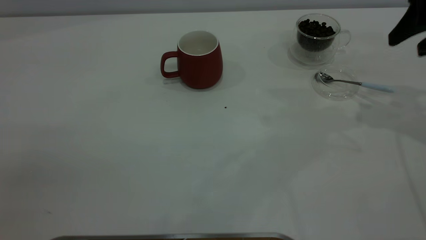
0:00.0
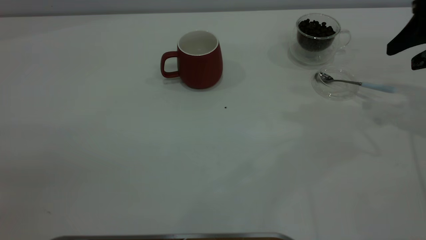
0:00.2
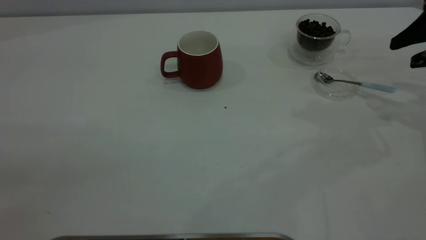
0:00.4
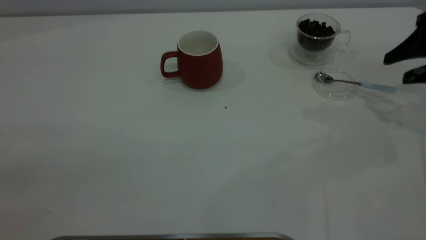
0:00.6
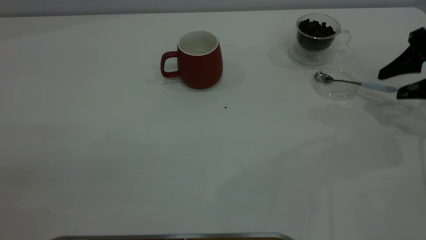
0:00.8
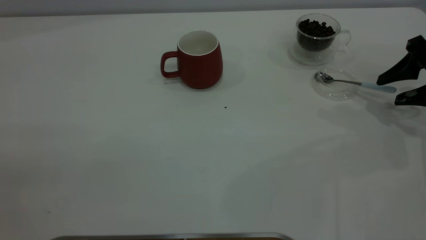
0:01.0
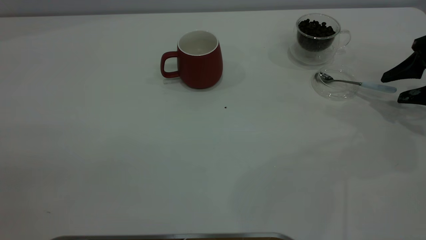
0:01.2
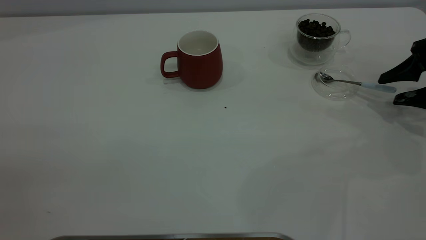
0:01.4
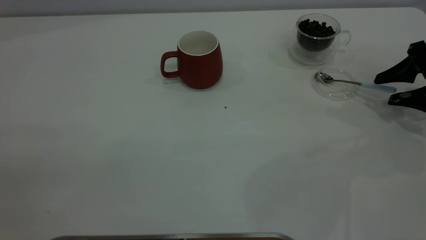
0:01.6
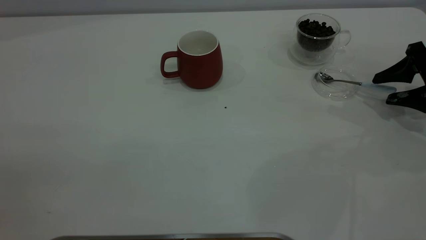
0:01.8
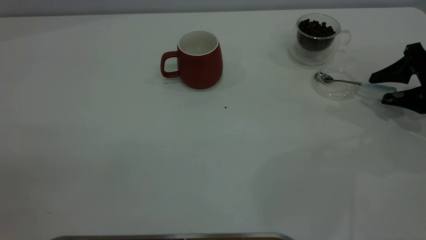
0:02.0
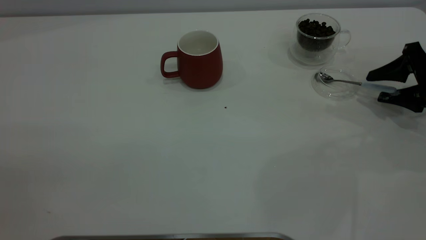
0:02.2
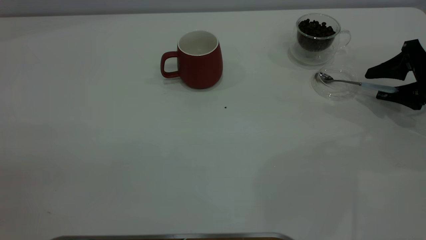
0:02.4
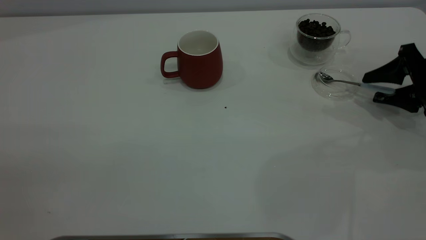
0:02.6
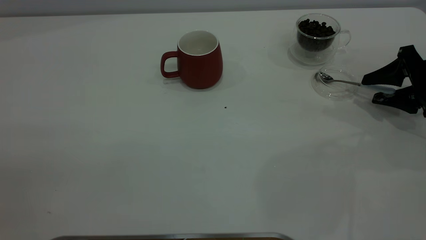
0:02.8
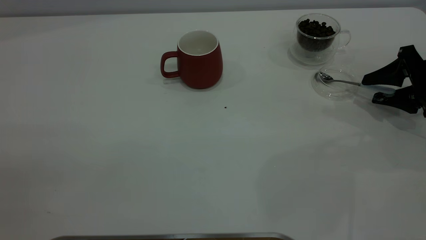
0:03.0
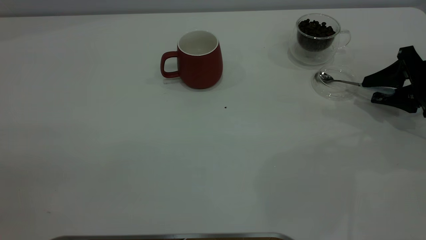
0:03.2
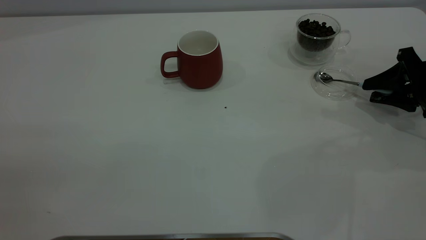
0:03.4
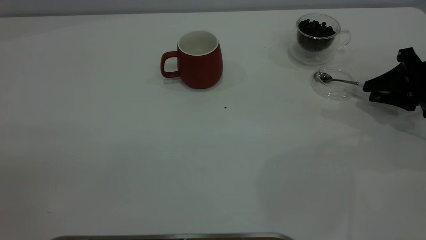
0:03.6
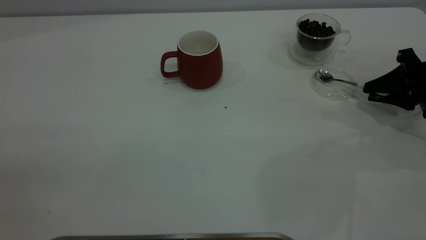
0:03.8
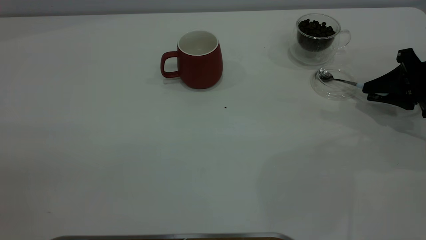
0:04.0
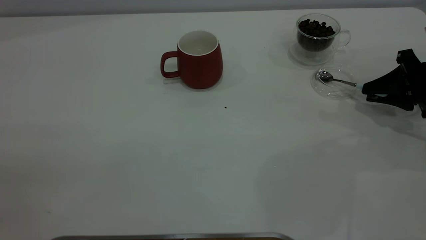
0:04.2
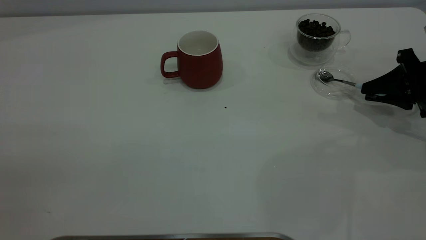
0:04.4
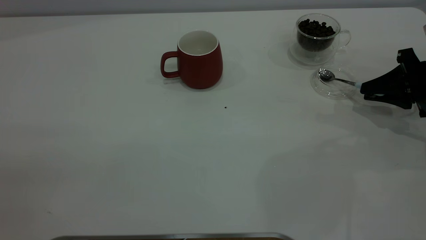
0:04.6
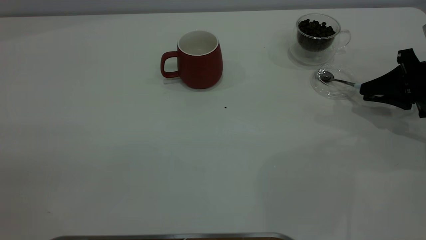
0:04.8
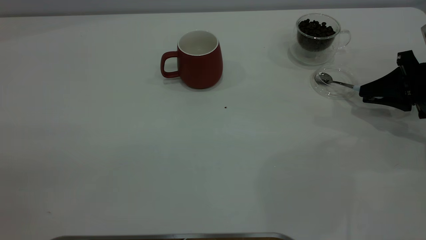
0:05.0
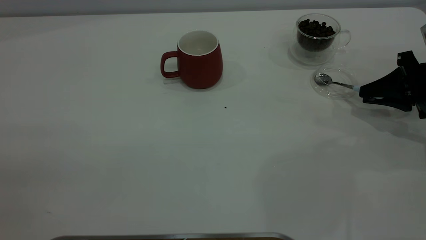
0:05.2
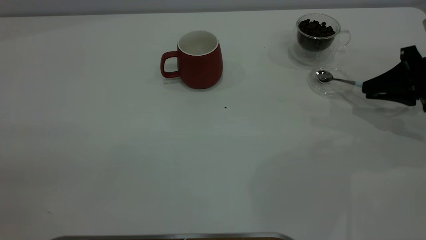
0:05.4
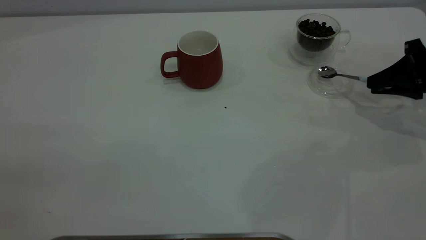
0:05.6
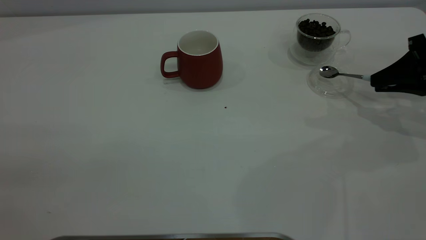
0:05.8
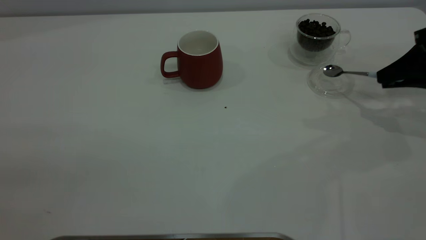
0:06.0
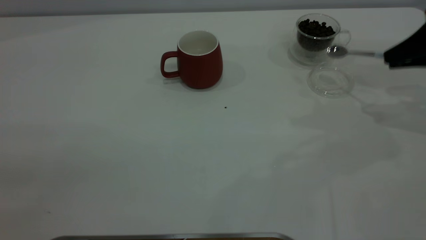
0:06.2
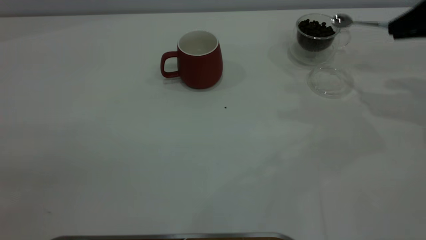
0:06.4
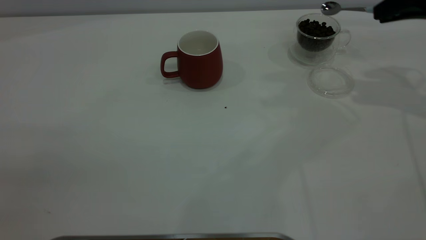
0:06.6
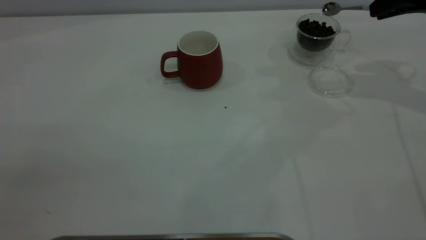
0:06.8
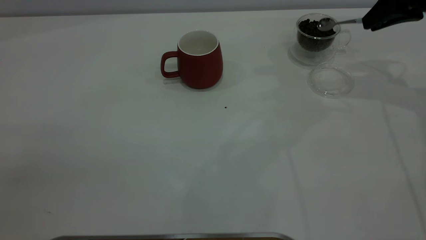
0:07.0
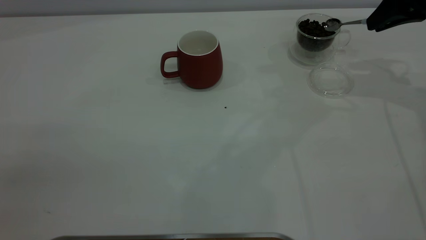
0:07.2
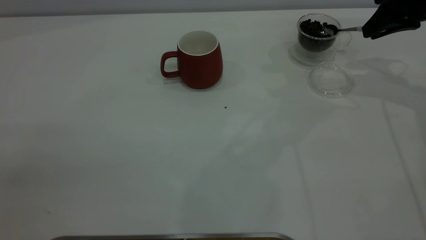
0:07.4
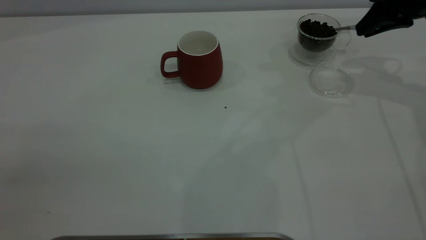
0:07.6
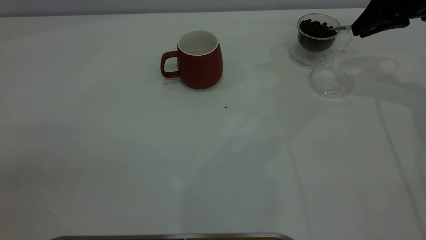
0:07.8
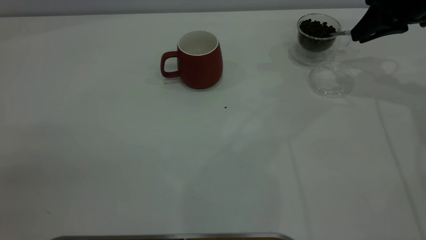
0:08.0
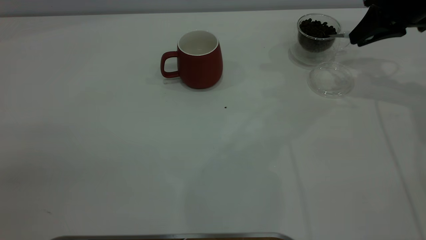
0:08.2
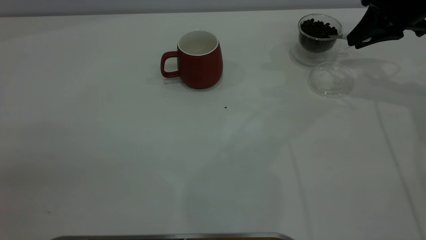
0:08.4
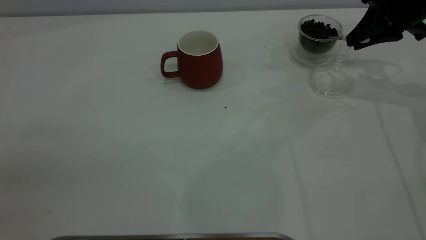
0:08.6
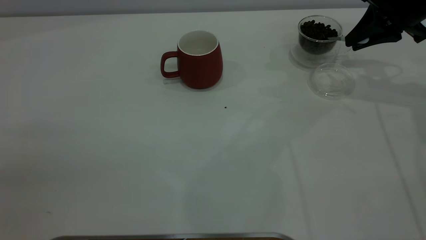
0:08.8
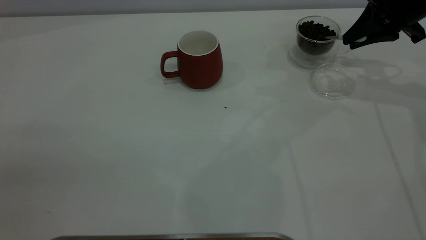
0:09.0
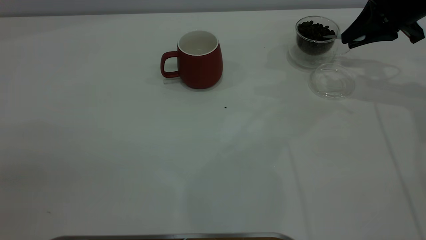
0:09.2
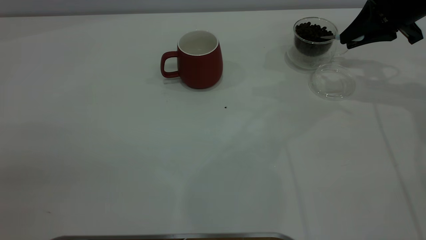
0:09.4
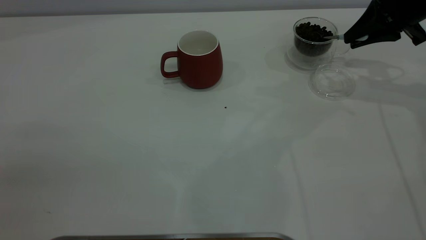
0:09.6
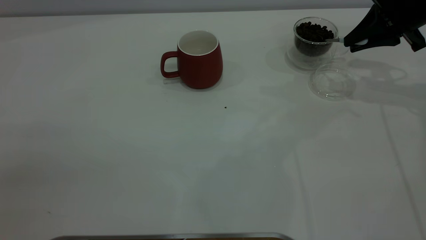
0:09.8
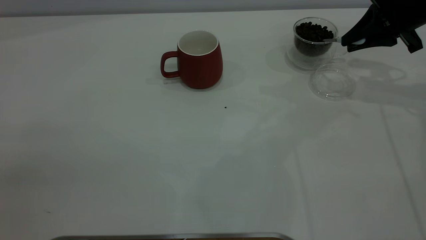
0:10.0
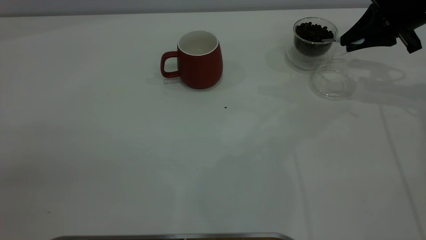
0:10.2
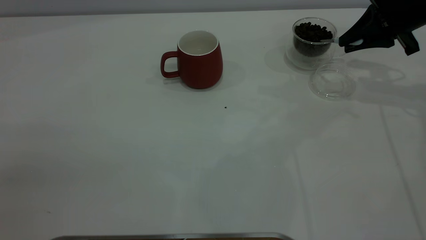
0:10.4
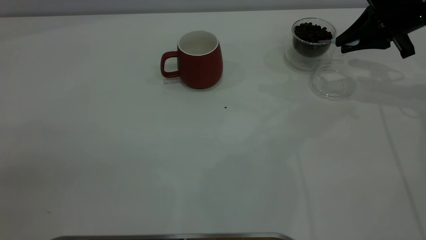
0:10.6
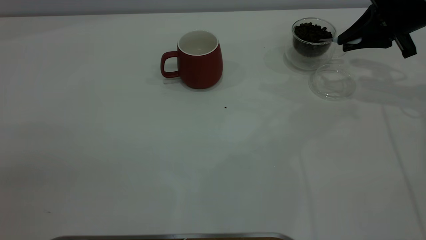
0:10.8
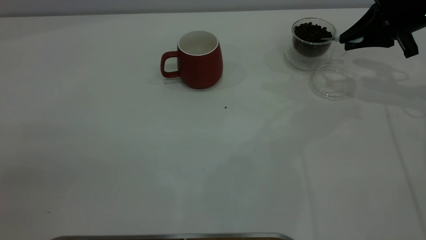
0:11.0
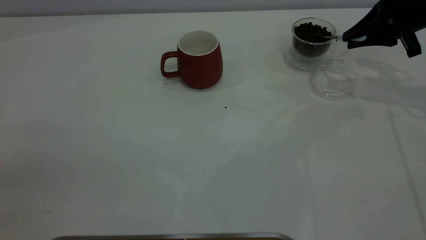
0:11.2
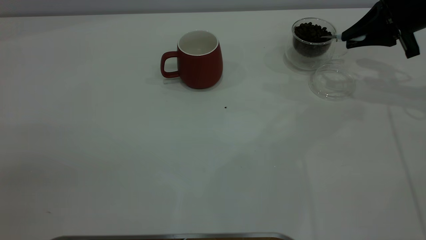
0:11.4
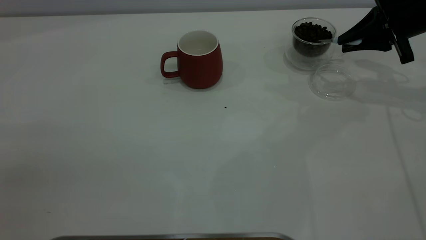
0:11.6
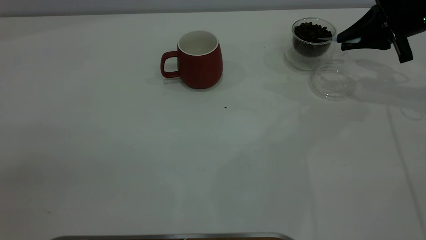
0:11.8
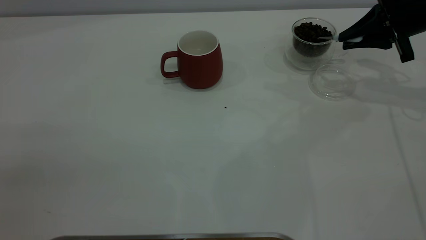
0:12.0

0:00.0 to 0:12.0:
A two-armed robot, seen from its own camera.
Task of the whole recording: the left gripper place the red cup in the center of the table, the right gripper take the blue spoon from the cup lid and scoop out the coffee beans from the coffee cup and put them into the red cup, the right gripper put the spoon back into the cup lid.
Step, 0:00.0 to 0:05.8: Pick up the spoon.
0:00.0 to 0:01.6: The right gripper moves downward, some 15 cm.
0:01.6 to 0:03.0: The grippers stay close to where they were, moving slightly.
0:03.0 to 0:04.4: The right gripper closes.
0:04.4 to 0:06.0: The right gripper travels upward by roughly 5 cm.
0:06.0 to 0:07.6: The right gripper goes about 10 cm forward, upward and to the left.
0:07.6 to 0:09.0: The grippers make only small movements.
0:09.0 to 0:10.4: There are only small adjustments of the grippers.
0:10.4 to 0:12.0: There are only small adjustments of the grippers.

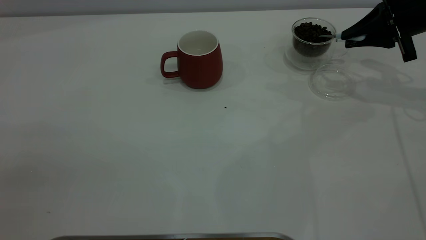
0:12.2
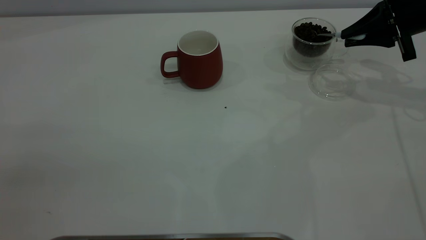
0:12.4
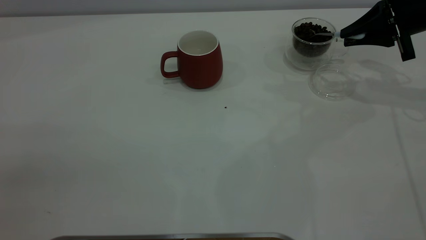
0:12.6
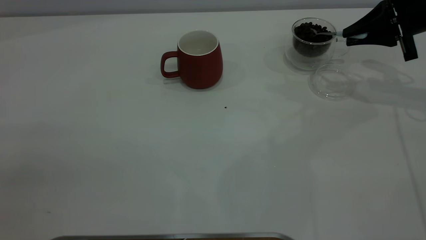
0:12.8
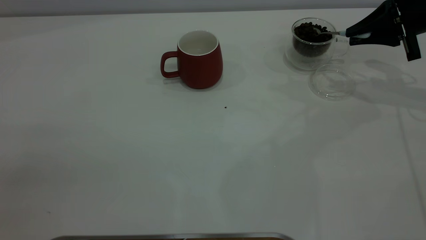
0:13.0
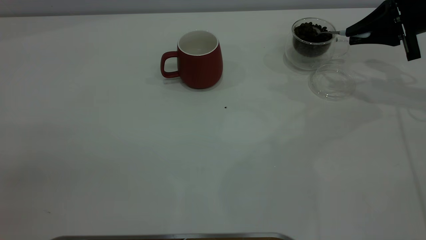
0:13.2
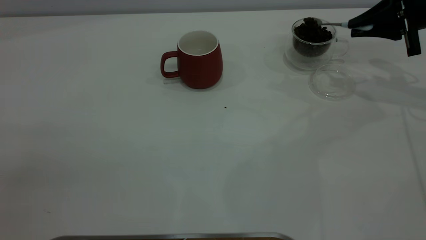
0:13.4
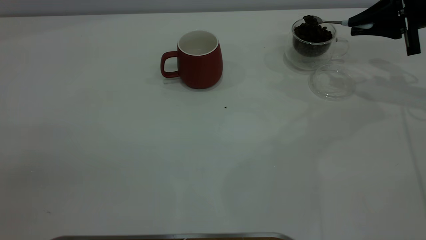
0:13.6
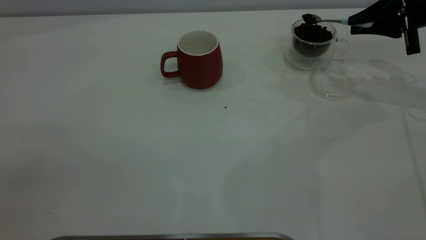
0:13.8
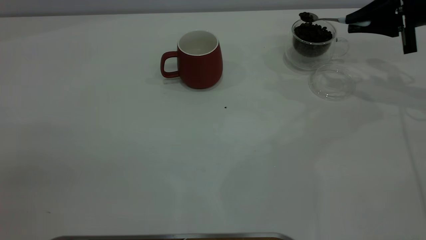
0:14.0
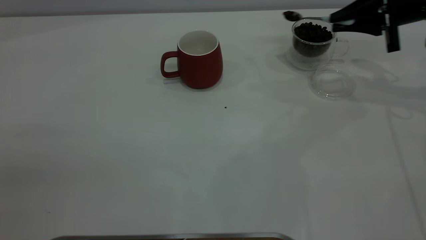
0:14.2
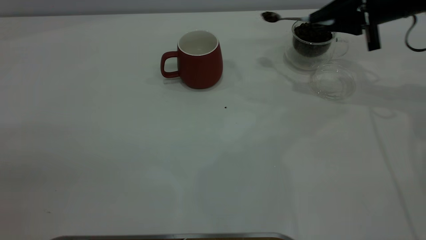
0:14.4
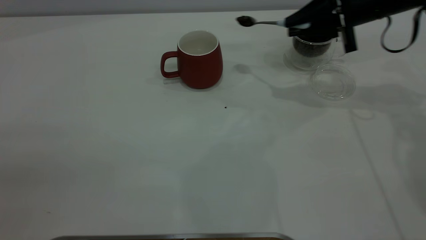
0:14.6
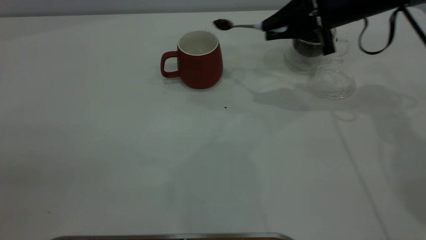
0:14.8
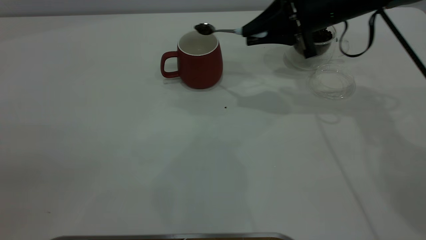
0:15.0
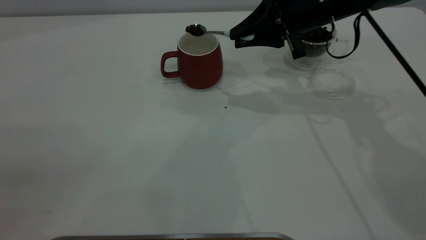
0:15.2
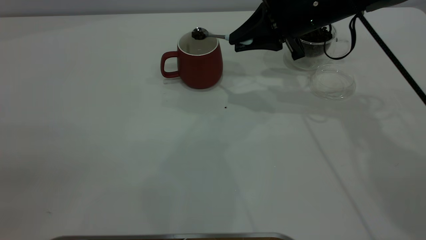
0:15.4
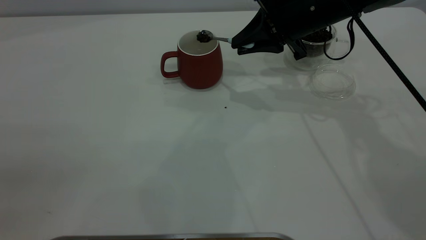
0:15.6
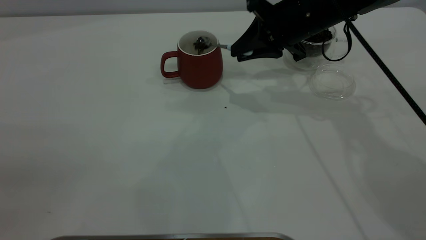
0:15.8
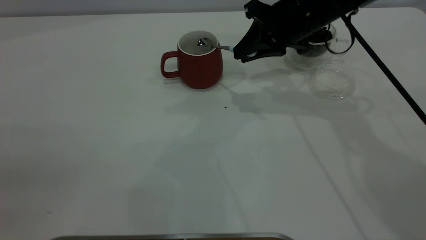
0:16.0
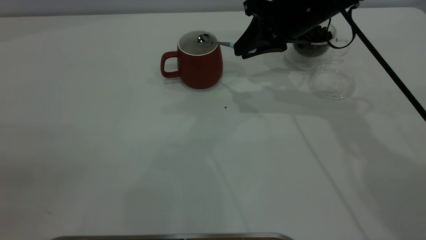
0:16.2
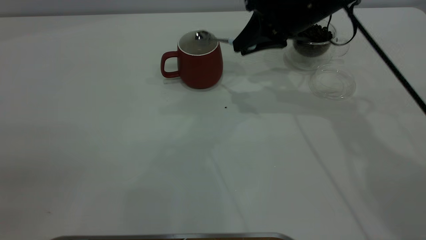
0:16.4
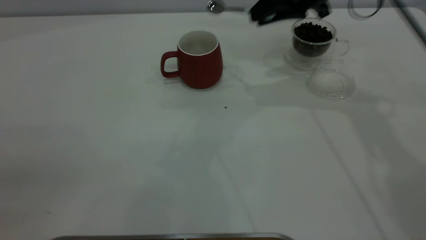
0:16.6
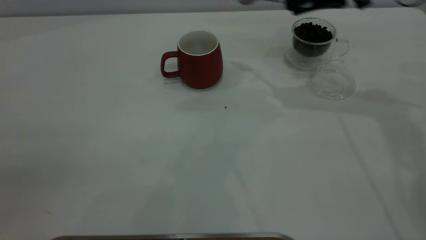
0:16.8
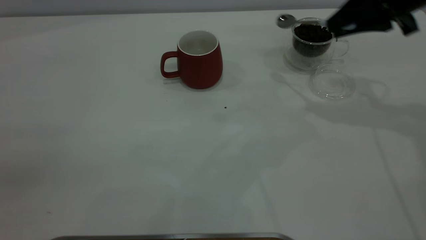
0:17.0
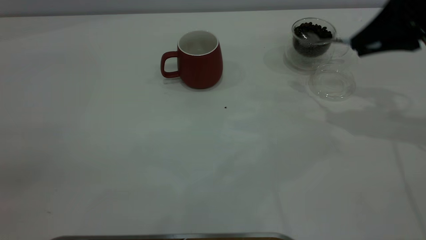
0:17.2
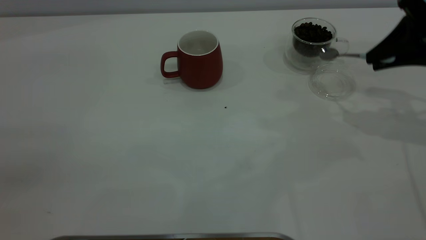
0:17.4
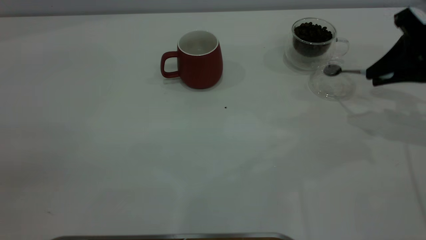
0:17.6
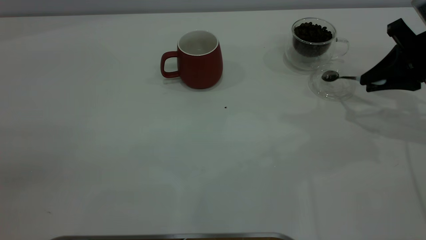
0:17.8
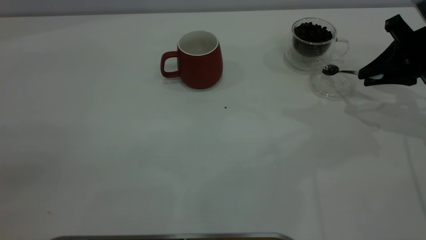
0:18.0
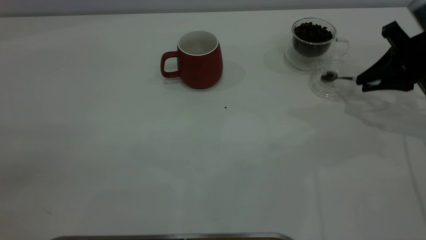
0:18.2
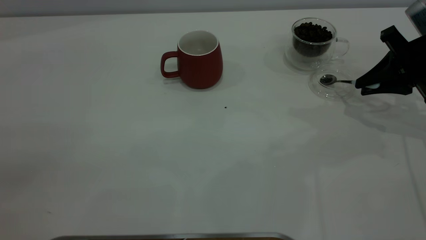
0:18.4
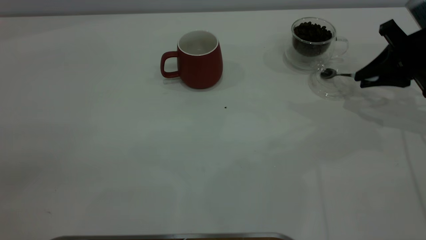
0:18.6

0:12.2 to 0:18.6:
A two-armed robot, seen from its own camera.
Task of the whole recording: the left gripper place the red cup in the center of the table, the right gripper take the blue spoon from the cup lid and scoop out the coffee beans from the coffee cup and put them into the red cup, the right gripper put the spoon back into the cup lid.
Step, 0:12.2 to 0:16.4: Scoop a spoonful of beans into the cup.
0:12.2 to 0:13.8: The grippers move only a little.
0:13.8 to 0:15.4: The right gripper goes approximately 20 cm to the left.
0:15.4 to 0:17.0: The right gripper travels to the right and upward by approximately 15 cm.
0:17.0 to 0:18.6: The right gripper moves downward and to the right, roughly 10 cm.
